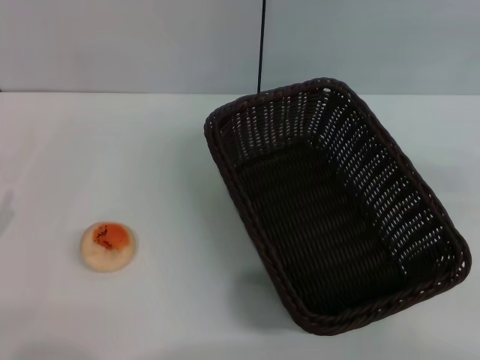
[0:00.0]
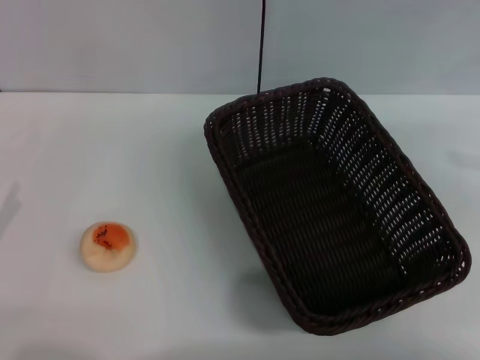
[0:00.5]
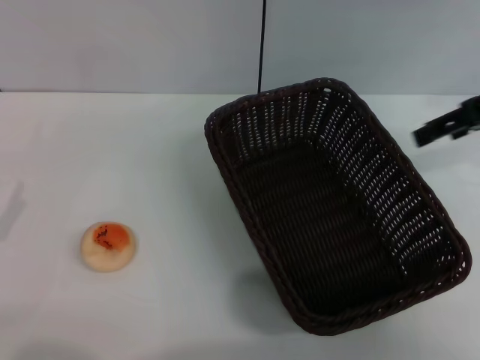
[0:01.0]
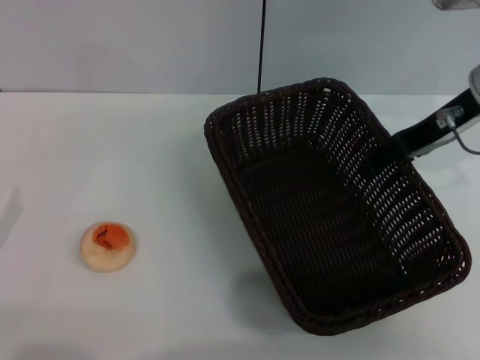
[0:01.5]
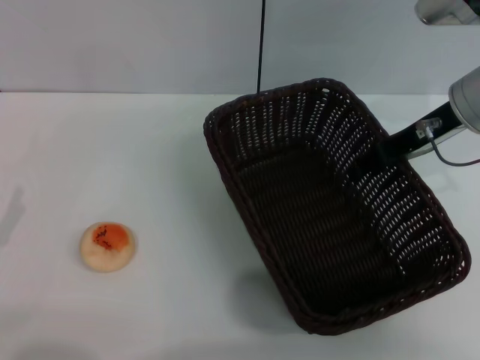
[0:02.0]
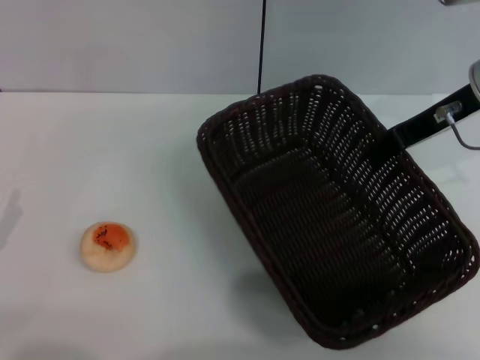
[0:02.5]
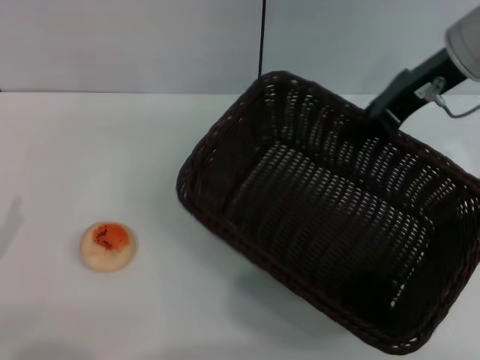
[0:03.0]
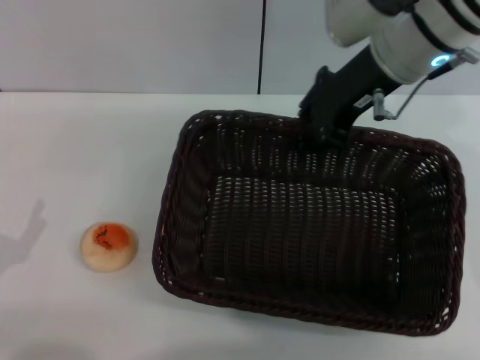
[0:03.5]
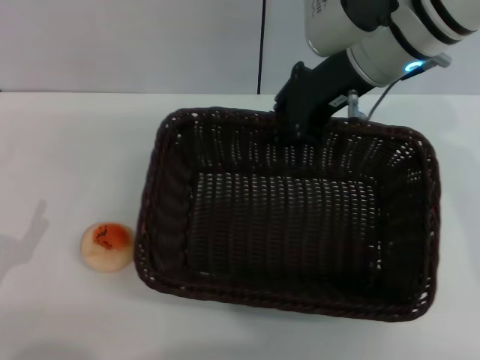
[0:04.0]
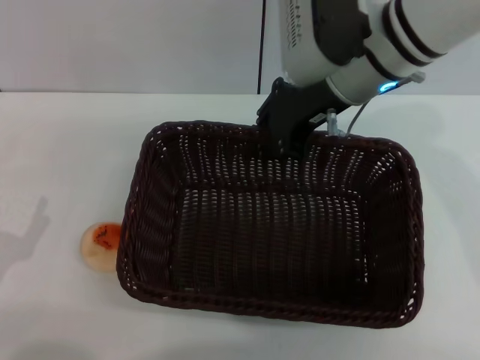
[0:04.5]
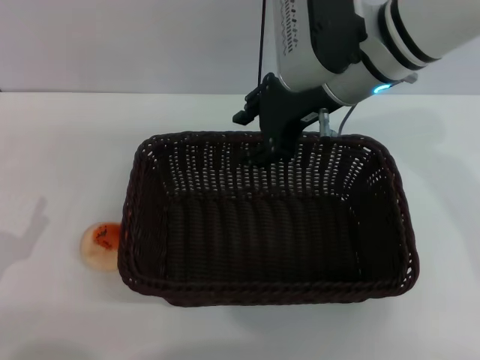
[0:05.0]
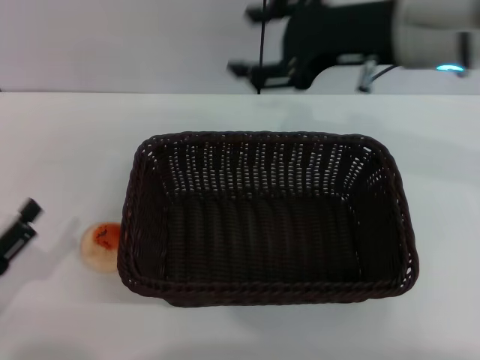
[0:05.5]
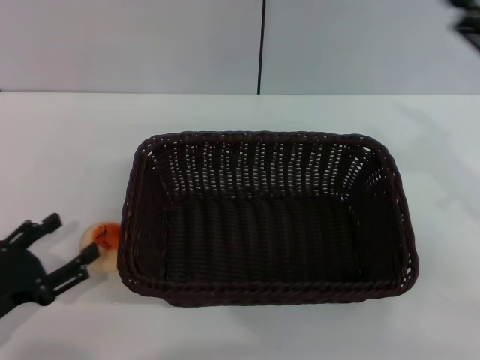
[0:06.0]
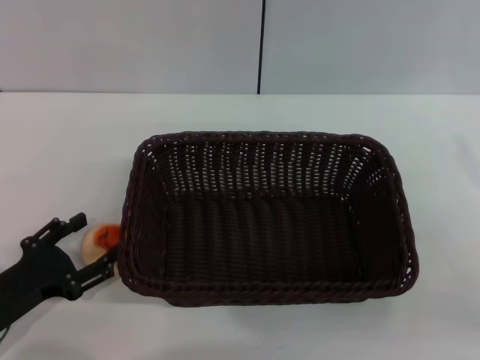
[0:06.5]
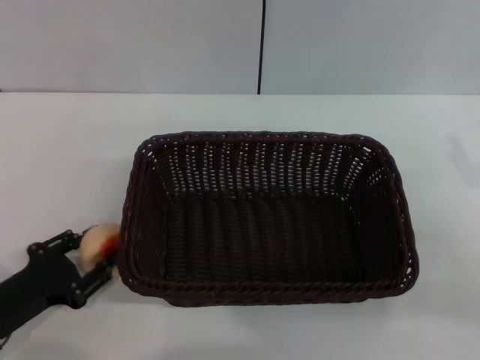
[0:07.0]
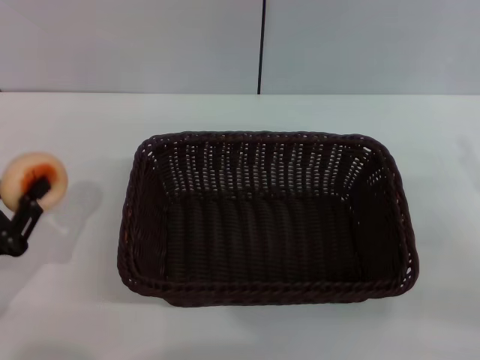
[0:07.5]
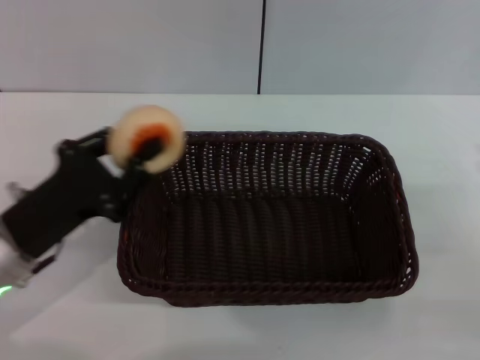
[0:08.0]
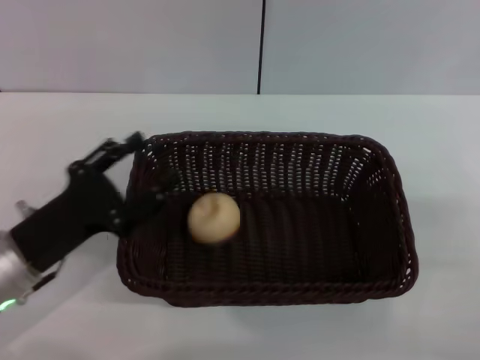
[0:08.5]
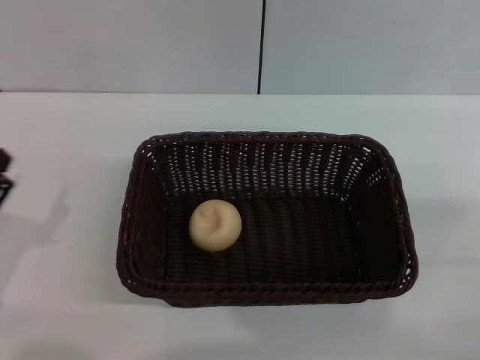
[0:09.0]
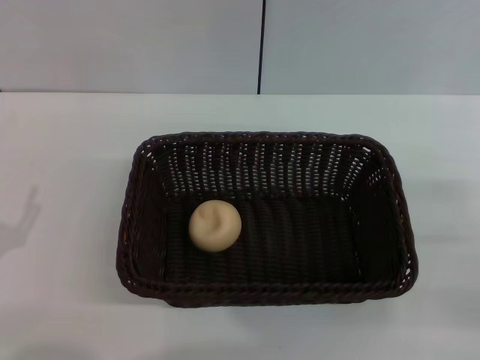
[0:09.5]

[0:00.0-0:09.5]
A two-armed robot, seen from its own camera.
Step, 0:00.0 to 0:05.0: Move the basket to the center of view with the right gripper.
Step, 0:05.5 to 0:07.5: Pick up the egg yolk pastry with the left gripper.
Step, 0:08.0 to 0:08.5: Place the egg yolk pastry into the basket with the left gripper.
0:00.0 to 0:02.0: The right gripper heads to the left and forward, covering about 25 cm, and closes.
0:02.0 to 0:04.0: The right gripper shifts some 10 cm to the left and upward, and closes its fingers.
0:04.0 to 0:05.5: The right gripper ends up about 5 cm from where it was, and opens.
0:05.5 to 0:07.5: The right gripper heads to the right, downward and backward, covering about 25 cm; the left gripper closes.
0:07.5 to 0:09.5: The left gripper moves about 5 cm forward and comes back, and opens up.

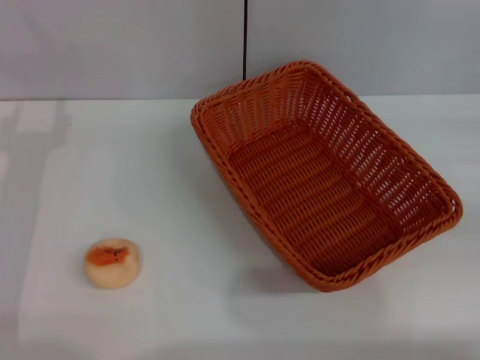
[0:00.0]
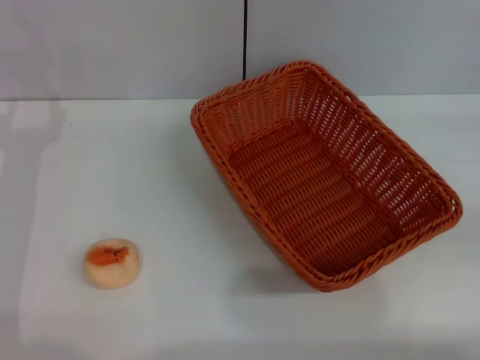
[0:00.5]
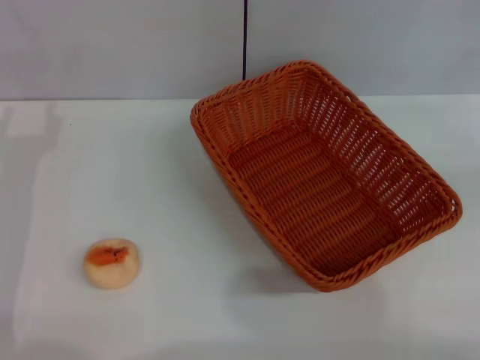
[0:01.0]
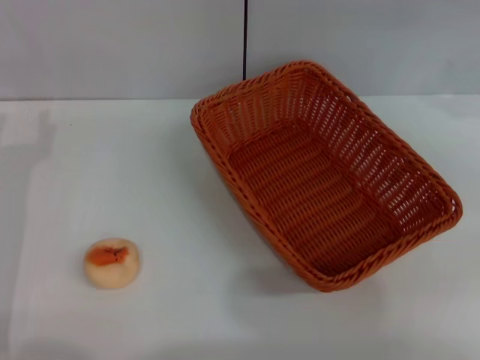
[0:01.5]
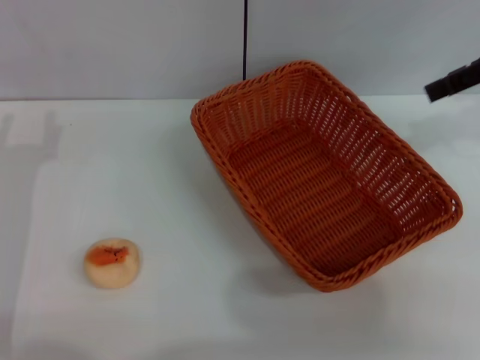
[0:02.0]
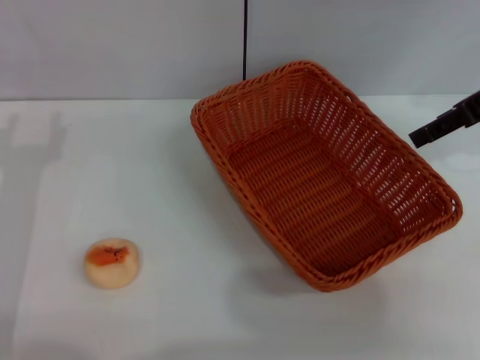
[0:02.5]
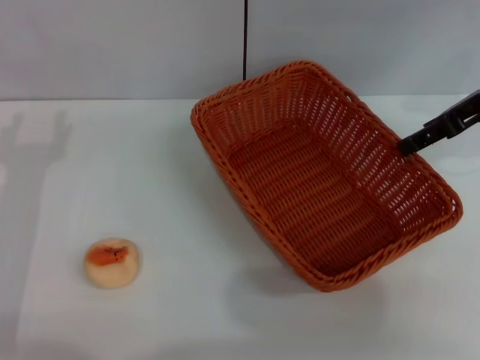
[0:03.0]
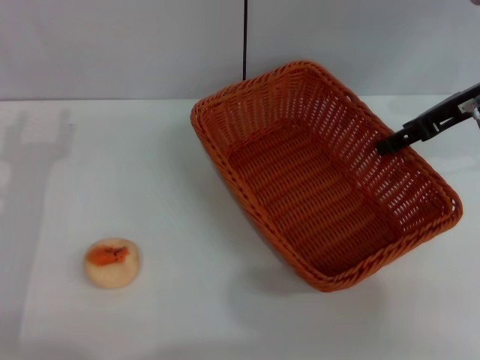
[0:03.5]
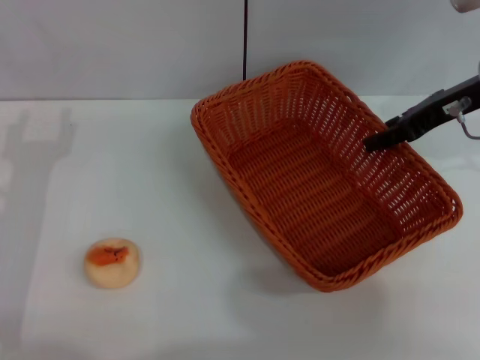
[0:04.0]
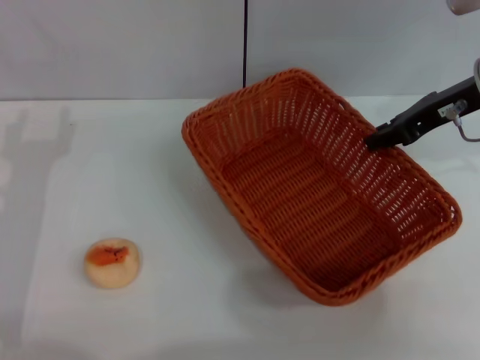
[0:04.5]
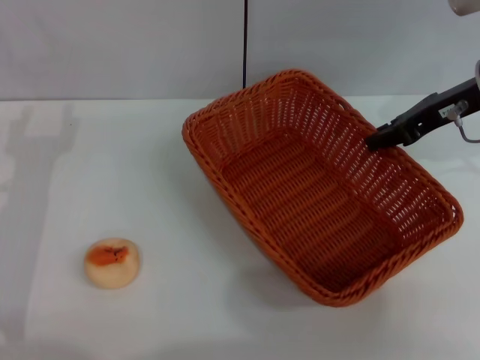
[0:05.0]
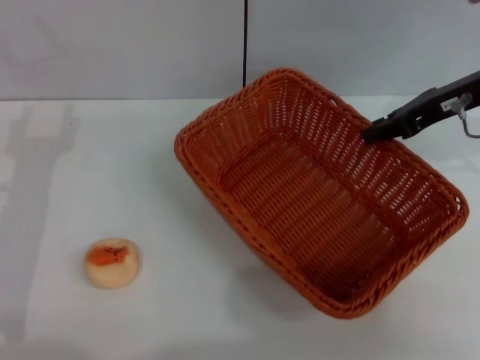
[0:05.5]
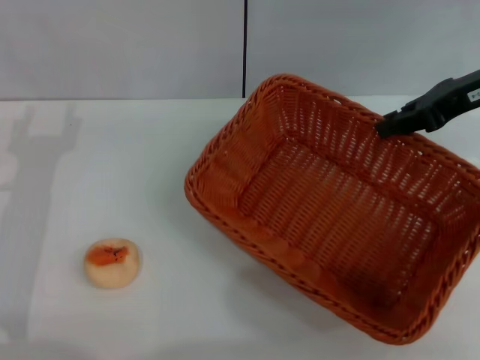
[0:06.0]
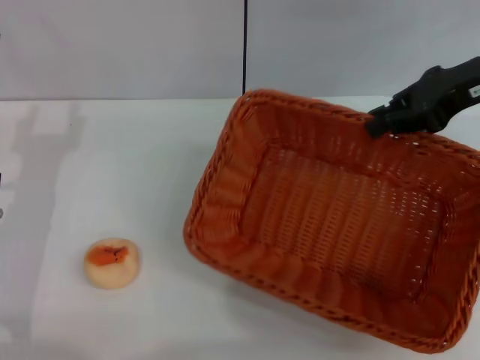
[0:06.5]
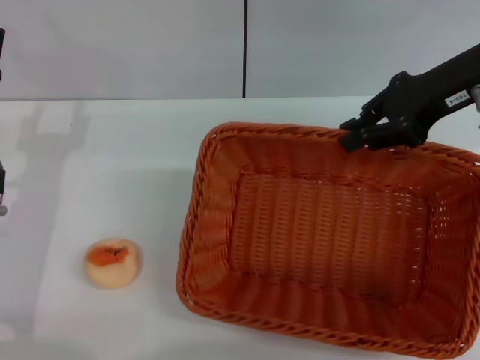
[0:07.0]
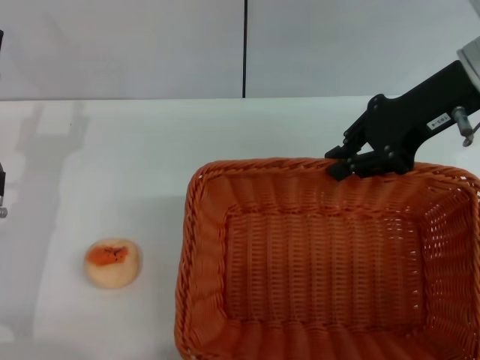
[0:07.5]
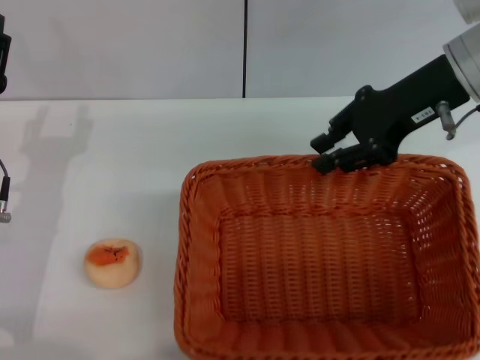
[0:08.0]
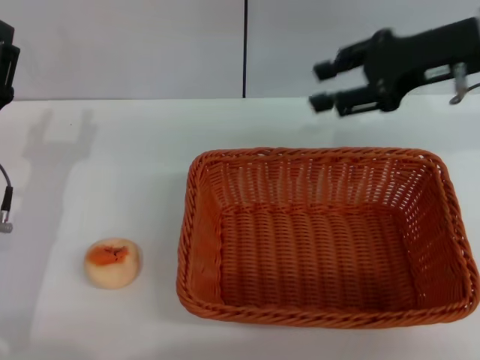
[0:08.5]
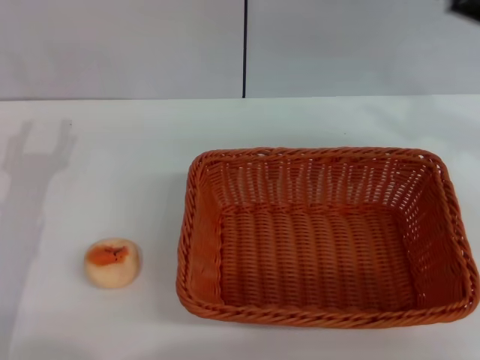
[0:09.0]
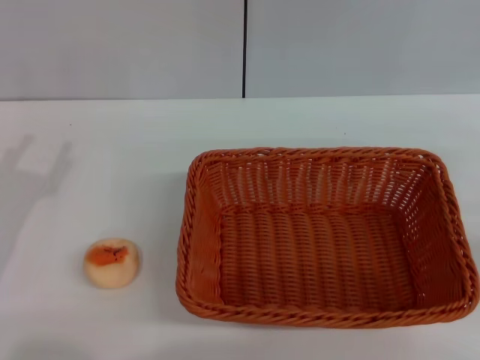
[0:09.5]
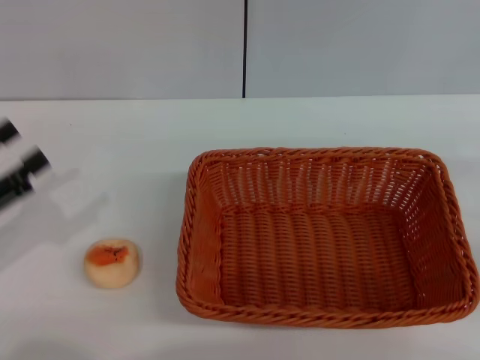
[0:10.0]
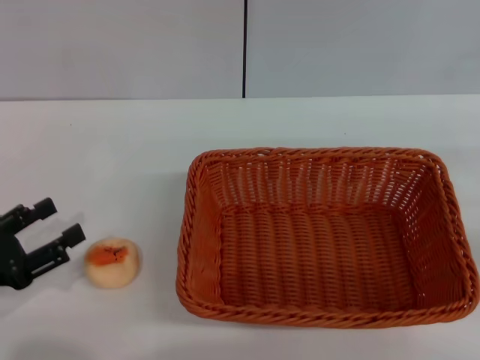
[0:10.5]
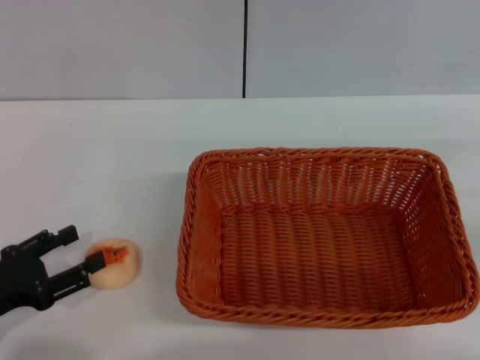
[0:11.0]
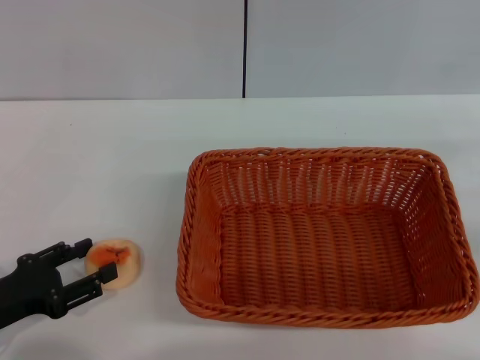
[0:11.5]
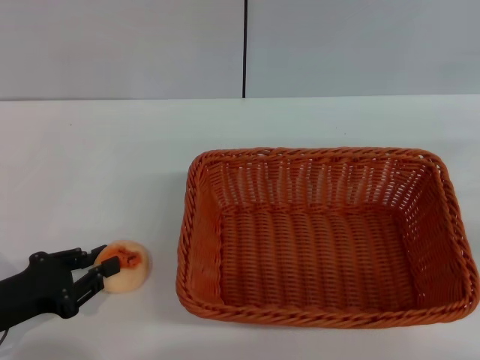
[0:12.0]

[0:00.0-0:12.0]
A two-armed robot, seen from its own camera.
Step, 0:00.0 to 0:08.0: Move the basket to the center of view with the right gripper.
0:00.0 to 0:02.0: The right gripper travels upward, to the left and forward by about 20 cm.
0:02.0 to 0:04.0: The right gripper shifts approximately 10 cm downward and to the left, and opens.
0:04.0 to 0:06.0: The right gripper closes its fingers.
0:06.0 to 0:08.0: The right gripper heads to the left, covering roughly 5 cm.
0:08.0 to 0:10.0: The left gripper heads to the left and backward, covering roughly 10 cm, while the right gripper goes some 30 cm to the right, backward and downward, and opens its fingers.
0:10.0 to 0:12.0: The left gripper is displaced downward by approximately 5 cm, and closes up.

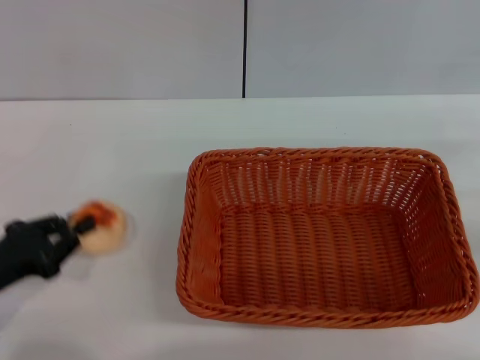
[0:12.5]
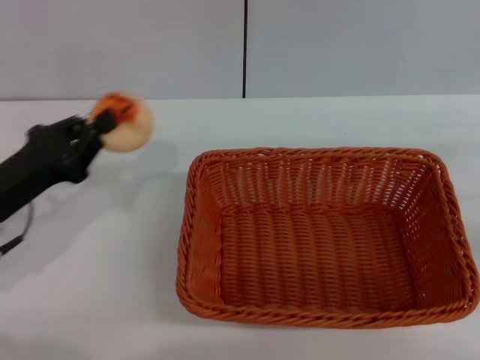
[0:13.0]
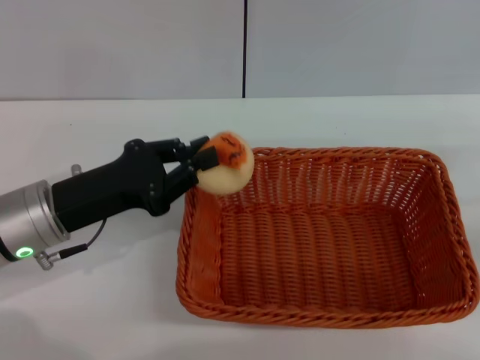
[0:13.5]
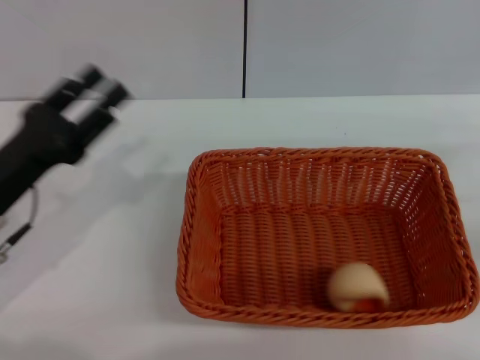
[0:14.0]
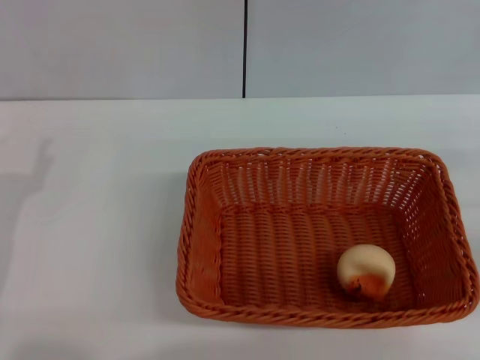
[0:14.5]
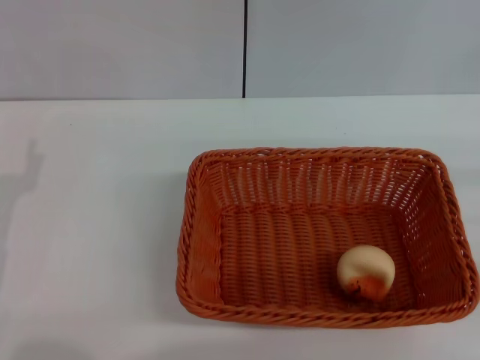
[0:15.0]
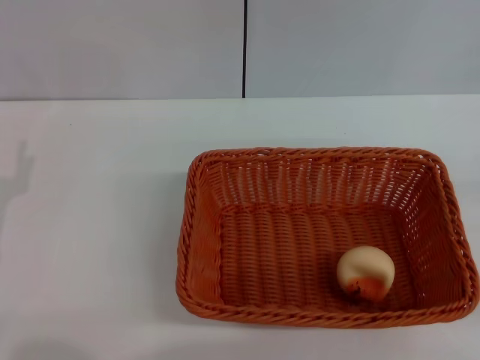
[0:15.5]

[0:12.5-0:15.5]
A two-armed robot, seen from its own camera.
Step, 0:13.0 to 0:14.0: Place the egg yolk pastry into the basket with the left gripper.
0:12.5 to 0:14.0: The left gripper is displaced forward and to the right by some 5 cm, and opens up.
0:14.0 to 0:15.5: The right gripper changes place by some 5 cm; the left gripper shifts by about 5 cm, and opens.
